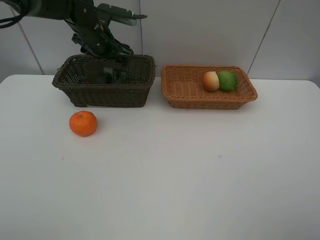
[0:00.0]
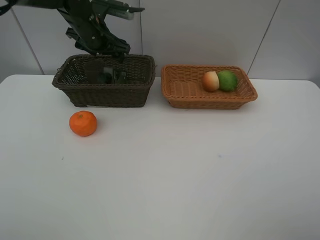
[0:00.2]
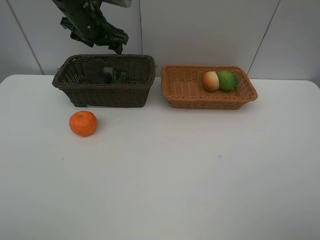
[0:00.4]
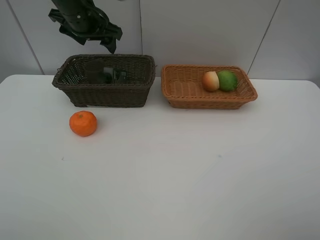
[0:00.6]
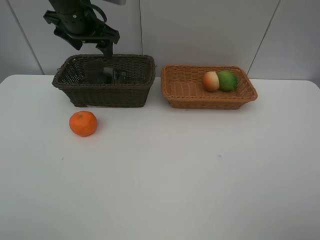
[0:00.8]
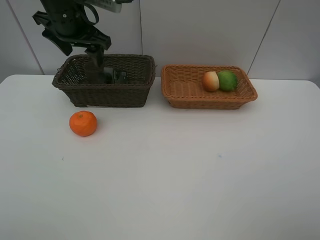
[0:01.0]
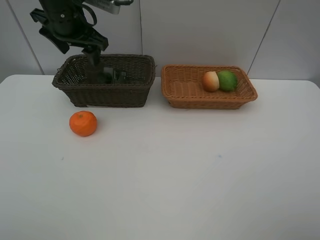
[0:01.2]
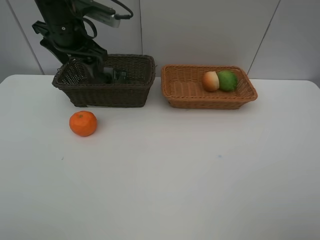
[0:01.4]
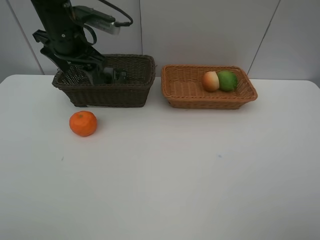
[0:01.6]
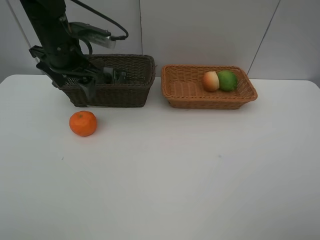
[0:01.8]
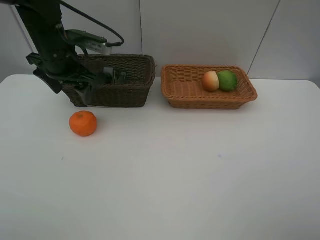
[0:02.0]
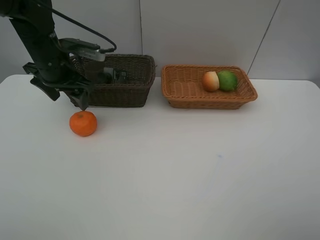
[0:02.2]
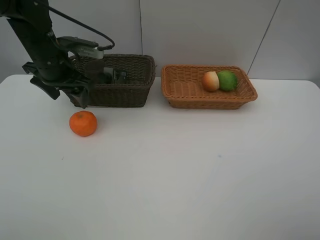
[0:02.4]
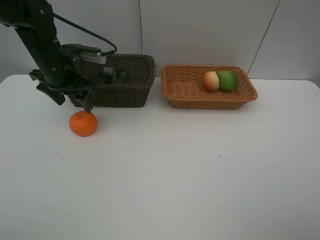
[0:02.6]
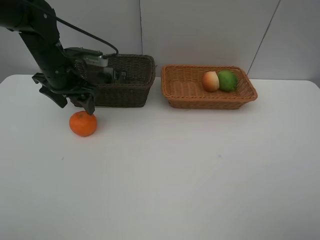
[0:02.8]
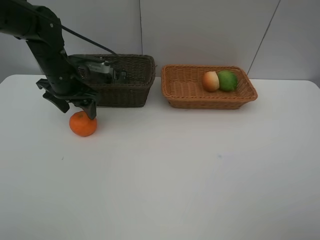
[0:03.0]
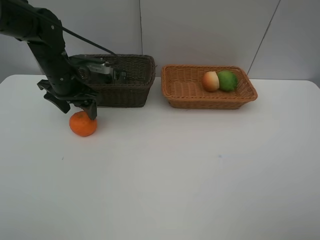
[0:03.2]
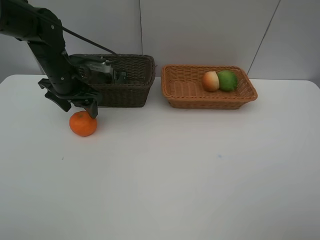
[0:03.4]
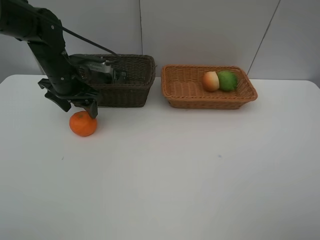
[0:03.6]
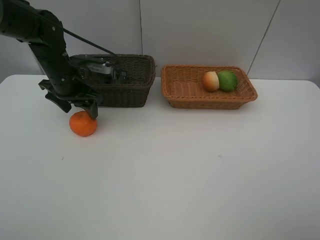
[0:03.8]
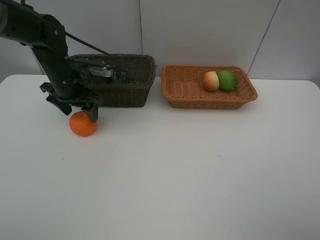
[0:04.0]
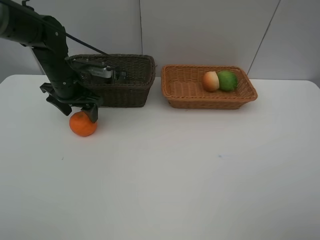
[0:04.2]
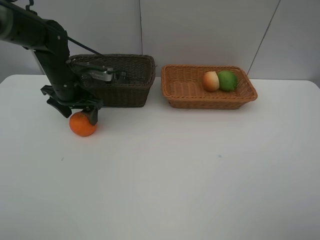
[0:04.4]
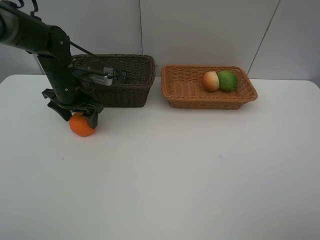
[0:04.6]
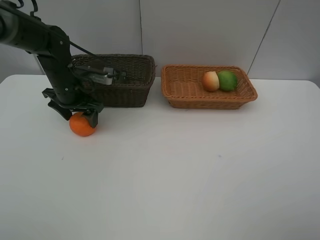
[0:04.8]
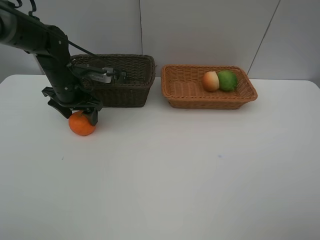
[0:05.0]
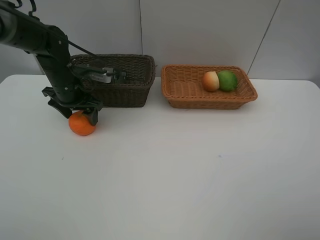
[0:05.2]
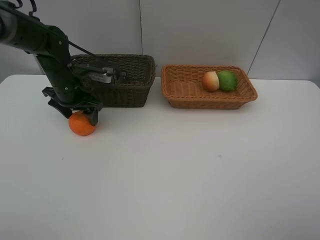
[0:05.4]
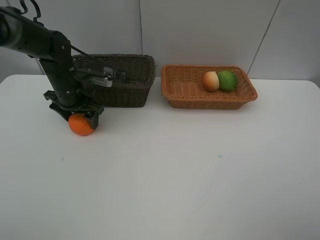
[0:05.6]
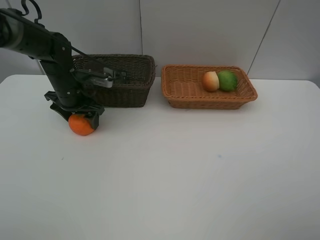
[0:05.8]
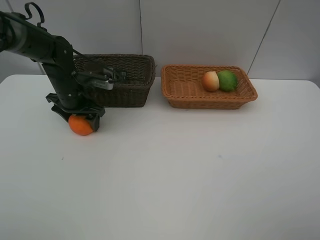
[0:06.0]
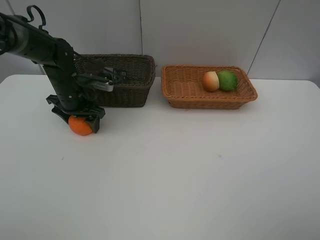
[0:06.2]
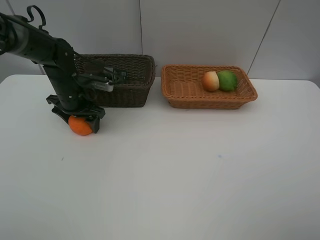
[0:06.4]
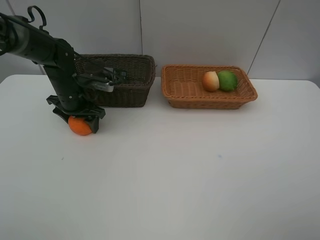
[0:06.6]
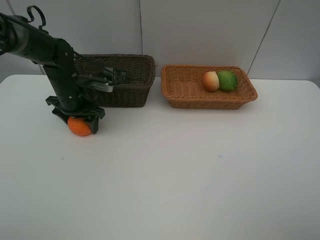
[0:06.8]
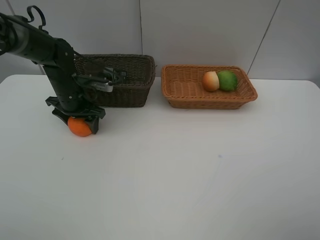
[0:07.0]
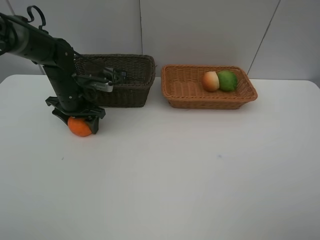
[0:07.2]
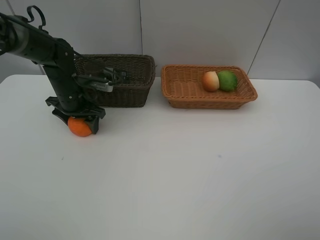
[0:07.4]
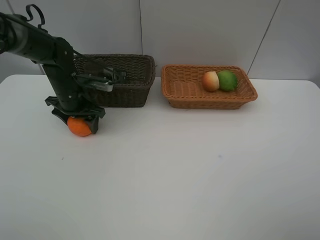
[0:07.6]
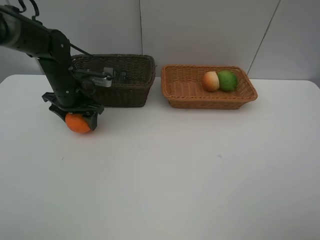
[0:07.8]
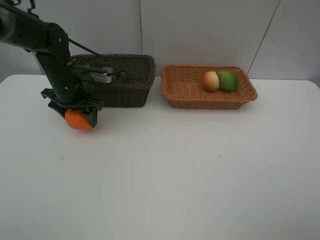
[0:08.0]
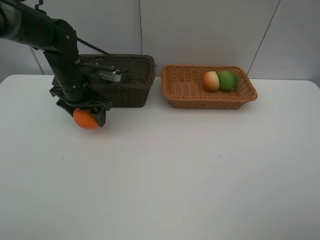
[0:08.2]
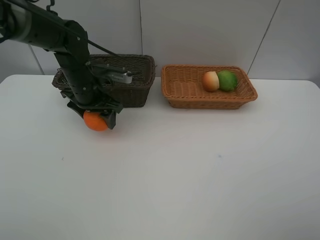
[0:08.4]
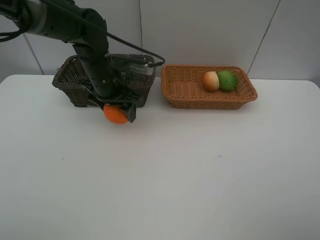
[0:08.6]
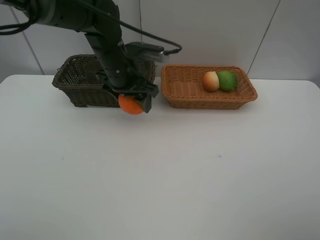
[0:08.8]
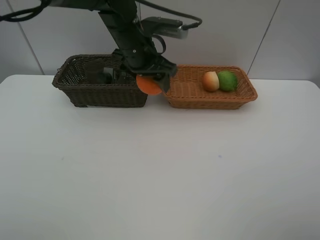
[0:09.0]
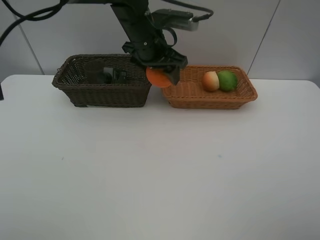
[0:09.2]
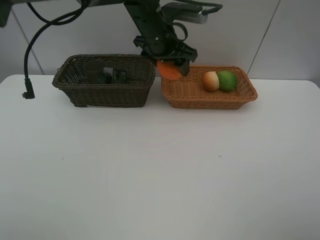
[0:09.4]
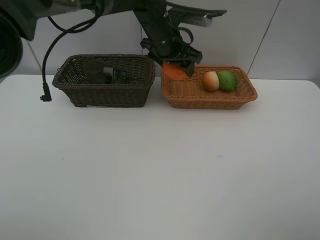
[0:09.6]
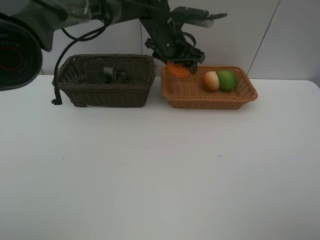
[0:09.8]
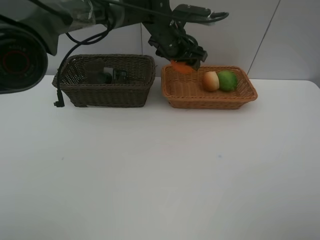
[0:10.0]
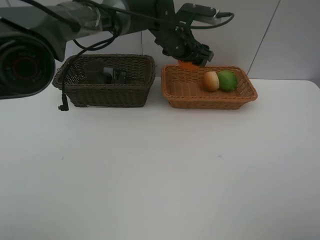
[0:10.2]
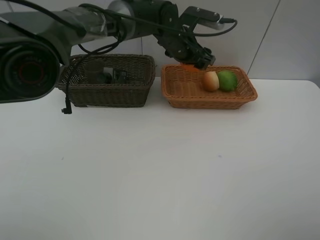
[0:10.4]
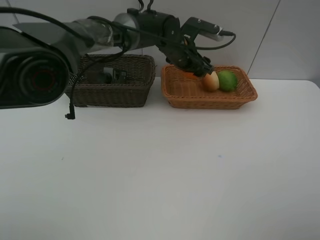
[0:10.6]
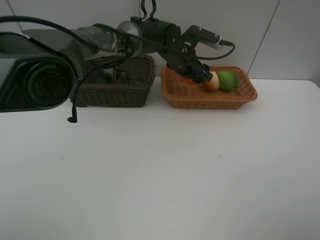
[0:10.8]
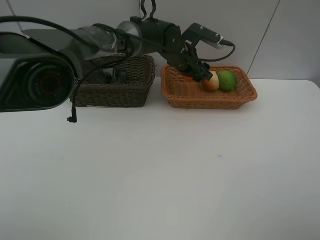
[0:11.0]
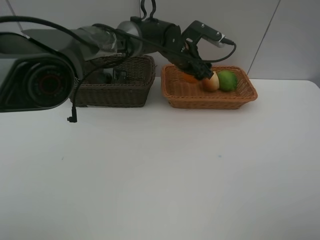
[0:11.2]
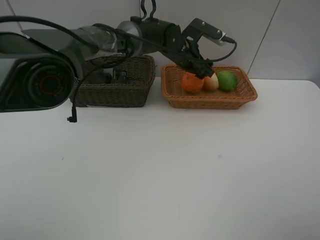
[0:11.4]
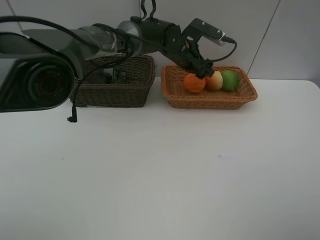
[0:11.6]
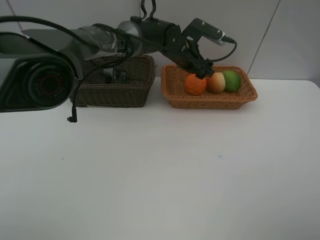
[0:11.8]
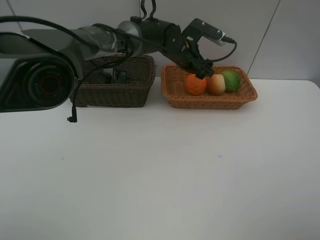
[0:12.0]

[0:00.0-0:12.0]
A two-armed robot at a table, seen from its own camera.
Task of the whole recording: place multiple objects separately in different baskets.
0:00.0 to 0:01.6: The left gripper travels backward by some 10 cm.
0:01.6 to 0:03.0: The left gripper travels downward by roughly 10 cm.
0:03.0 to 0:06.0: The grippers stay close to where they were, moving slightly.
0:06.0 to 0:07.6: Neither gripper changes place.
0:07.6 to 0:09.0: The left gripper moves to the right and upward, roughly 20 cm.
0:09.0 to 0:10.4: The left gripper is displaced to the right and forward by about 10 cm.
0:10.4 to 0:12.0: There are only small adjustments of the grippers.

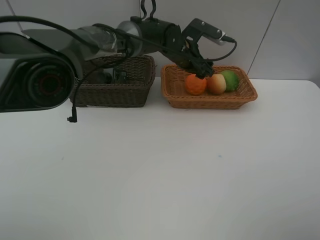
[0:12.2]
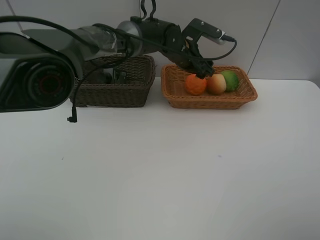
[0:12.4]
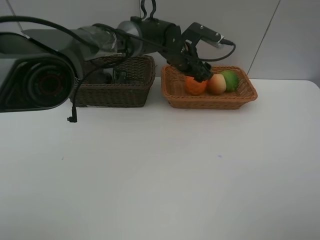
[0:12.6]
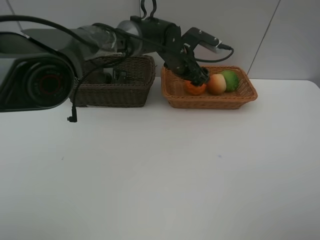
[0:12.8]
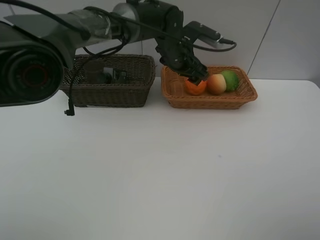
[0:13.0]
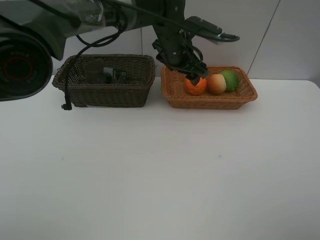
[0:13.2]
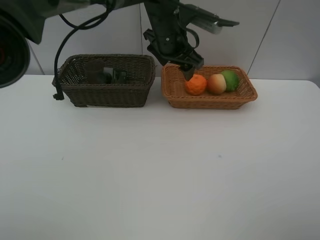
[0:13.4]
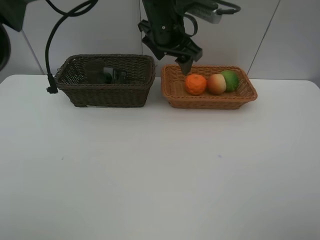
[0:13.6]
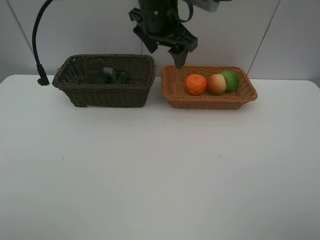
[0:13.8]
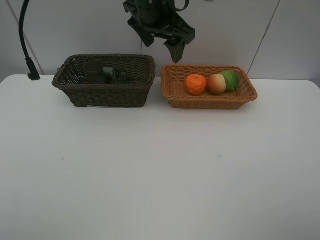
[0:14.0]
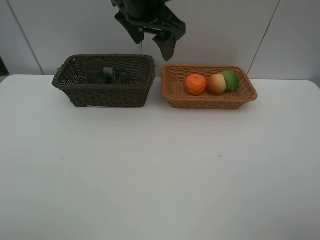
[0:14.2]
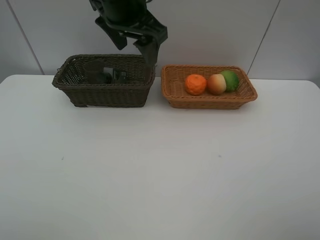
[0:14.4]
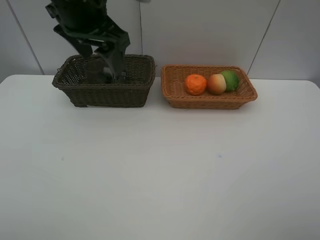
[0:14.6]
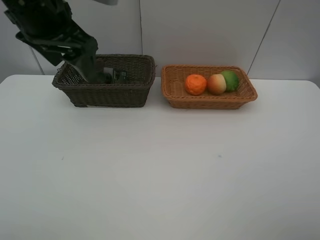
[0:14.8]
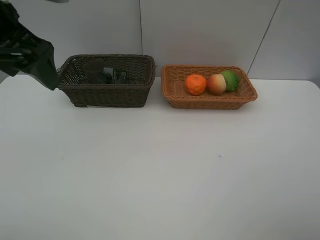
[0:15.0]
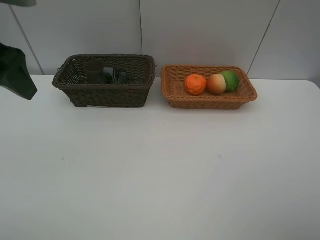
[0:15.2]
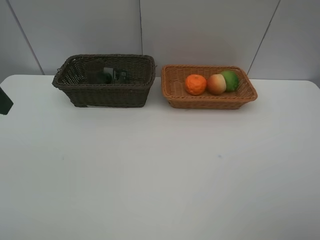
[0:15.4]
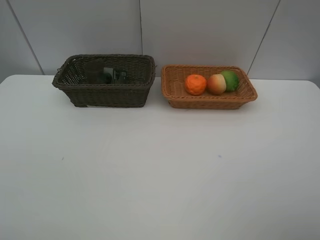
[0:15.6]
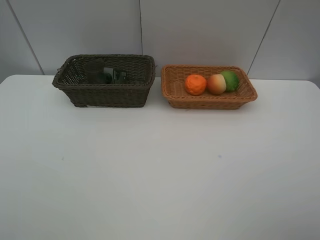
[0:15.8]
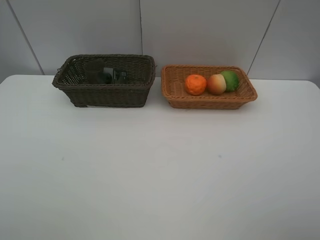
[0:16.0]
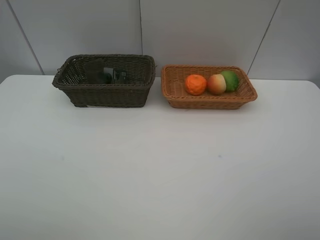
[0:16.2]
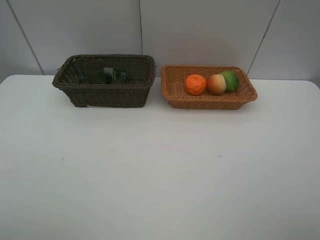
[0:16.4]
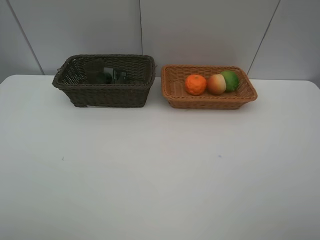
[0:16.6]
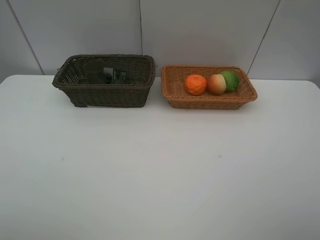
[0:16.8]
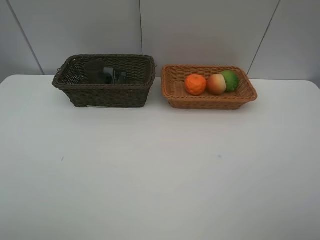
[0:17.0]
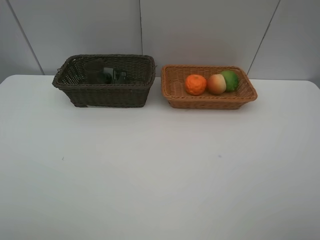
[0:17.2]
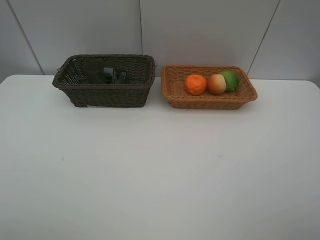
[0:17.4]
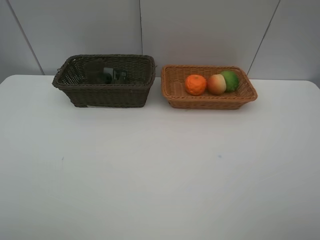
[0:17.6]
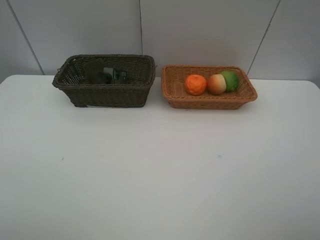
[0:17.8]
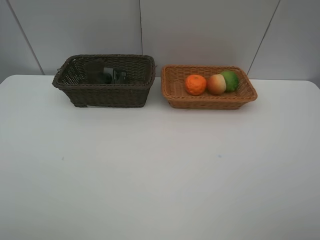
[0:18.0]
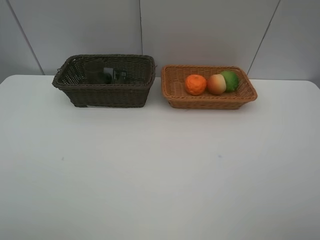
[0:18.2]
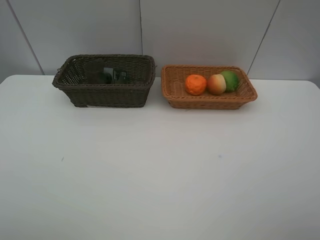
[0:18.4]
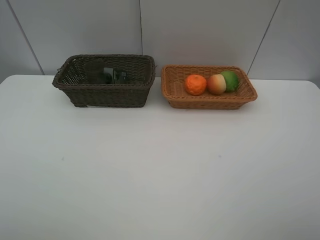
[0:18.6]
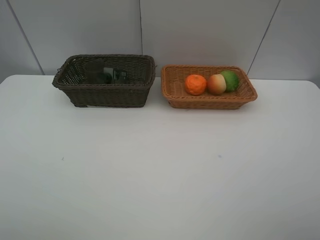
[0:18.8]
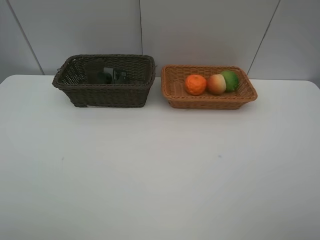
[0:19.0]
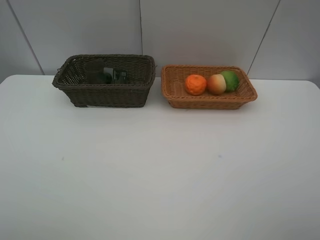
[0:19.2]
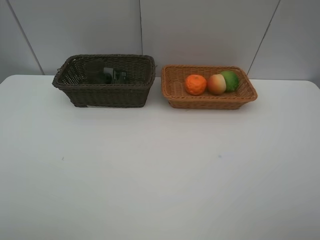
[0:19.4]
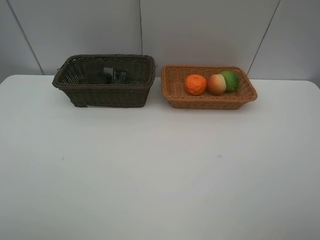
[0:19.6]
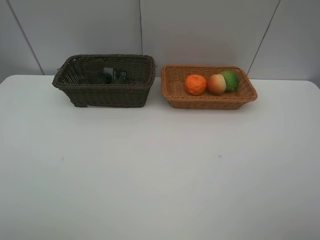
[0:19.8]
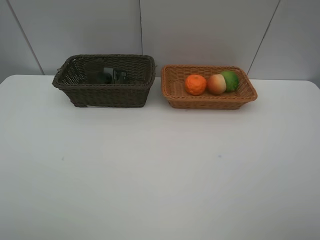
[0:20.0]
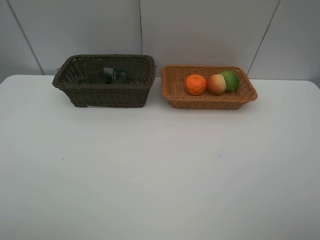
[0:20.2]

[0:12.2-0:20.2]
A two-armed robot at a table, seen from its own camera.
Task of the whole recording: place multiple objects separately in different baskets.
0:12.2 to 0:13.8: The left gripper goes approximately 15 cm upward, backward and to the left.
0:13.8 to 0:15.4: The left gripper is displaced to the left and backward by approximately 35 cm.
0:18.6 to 0:20.2: Both grippers stay put.
